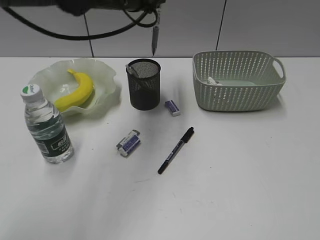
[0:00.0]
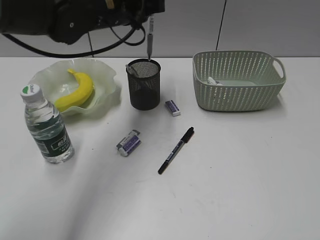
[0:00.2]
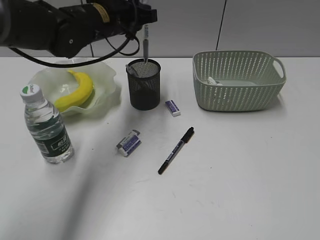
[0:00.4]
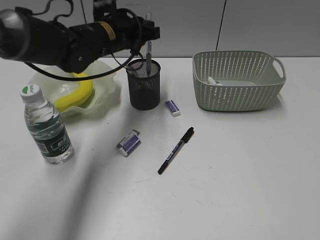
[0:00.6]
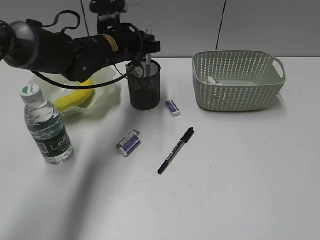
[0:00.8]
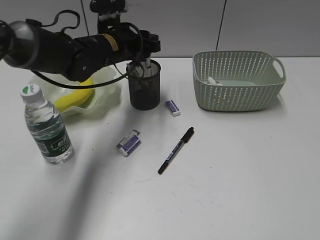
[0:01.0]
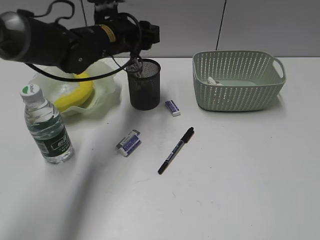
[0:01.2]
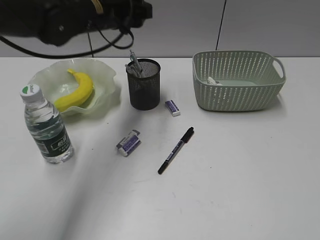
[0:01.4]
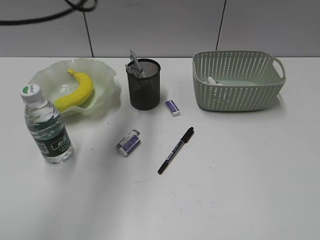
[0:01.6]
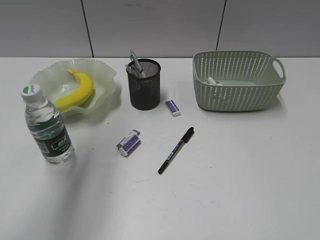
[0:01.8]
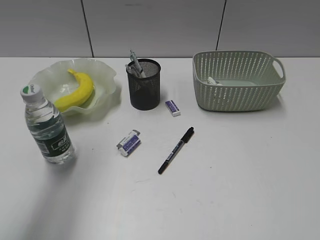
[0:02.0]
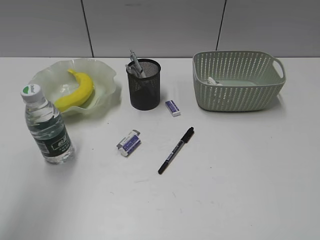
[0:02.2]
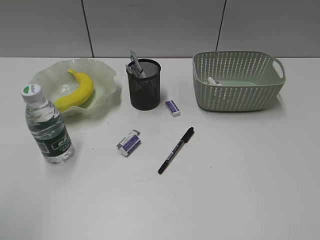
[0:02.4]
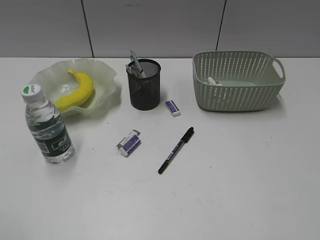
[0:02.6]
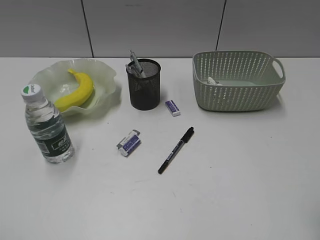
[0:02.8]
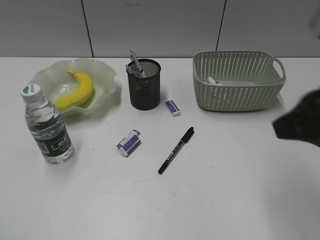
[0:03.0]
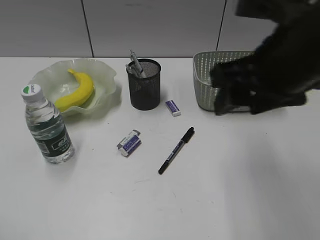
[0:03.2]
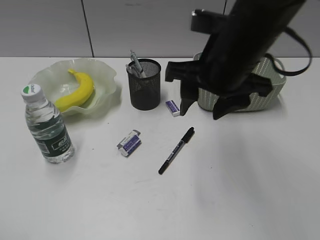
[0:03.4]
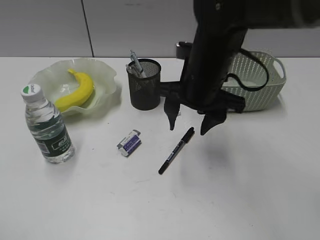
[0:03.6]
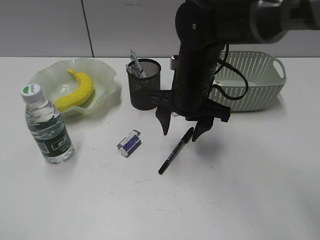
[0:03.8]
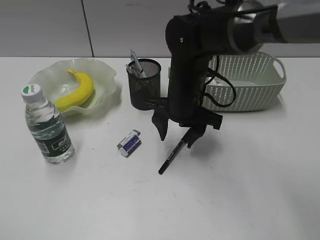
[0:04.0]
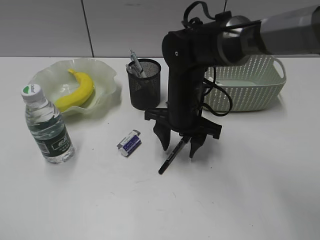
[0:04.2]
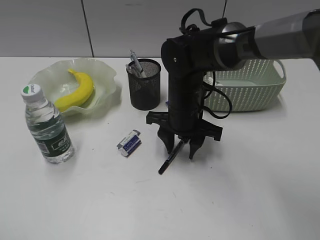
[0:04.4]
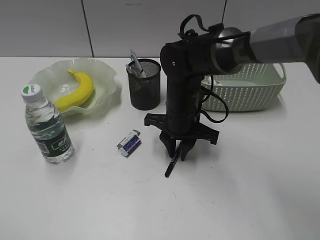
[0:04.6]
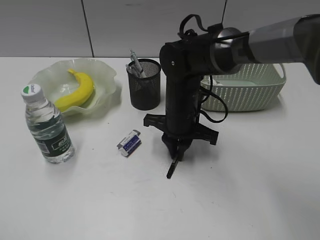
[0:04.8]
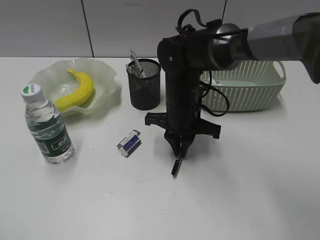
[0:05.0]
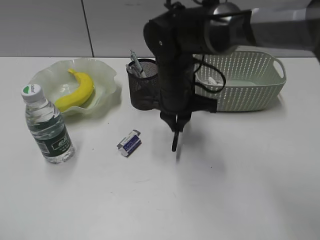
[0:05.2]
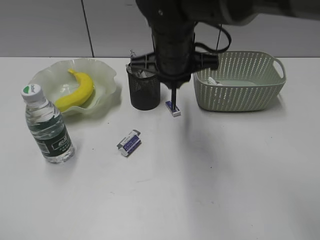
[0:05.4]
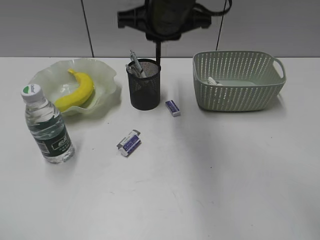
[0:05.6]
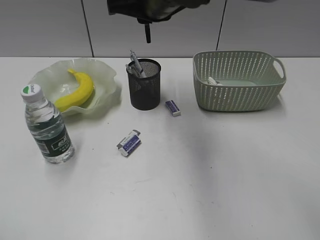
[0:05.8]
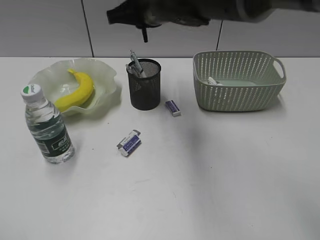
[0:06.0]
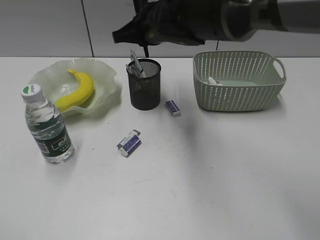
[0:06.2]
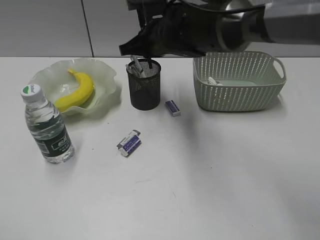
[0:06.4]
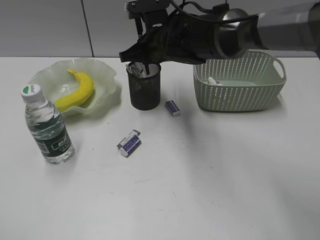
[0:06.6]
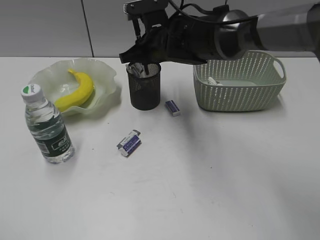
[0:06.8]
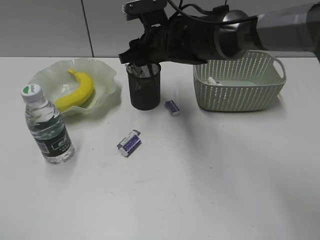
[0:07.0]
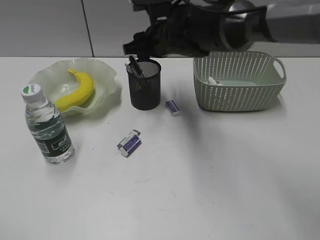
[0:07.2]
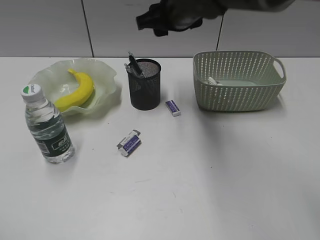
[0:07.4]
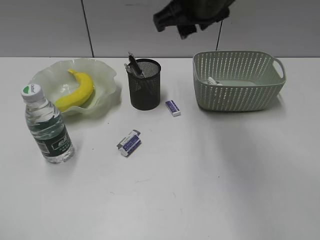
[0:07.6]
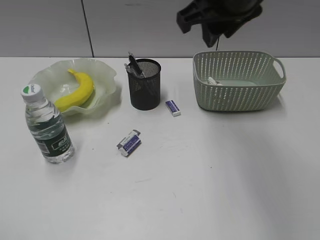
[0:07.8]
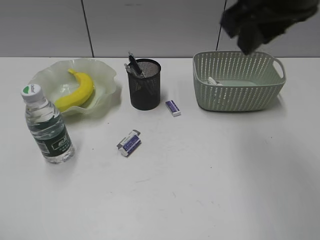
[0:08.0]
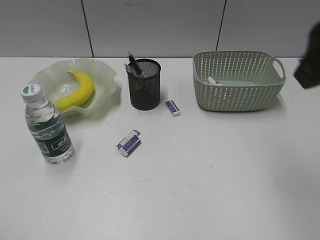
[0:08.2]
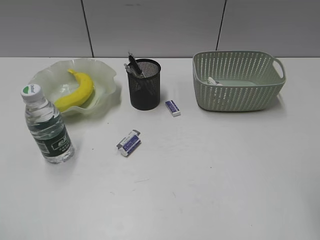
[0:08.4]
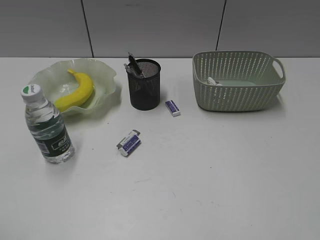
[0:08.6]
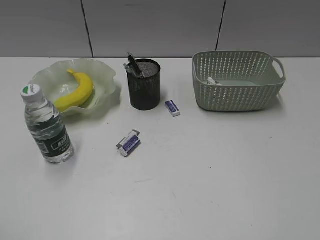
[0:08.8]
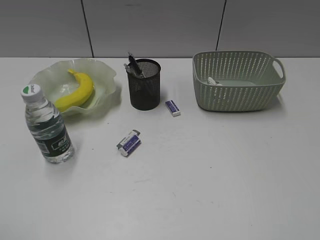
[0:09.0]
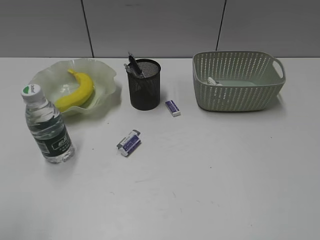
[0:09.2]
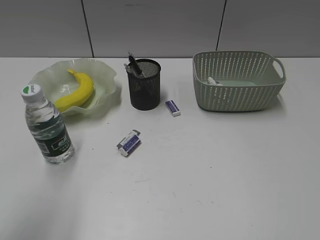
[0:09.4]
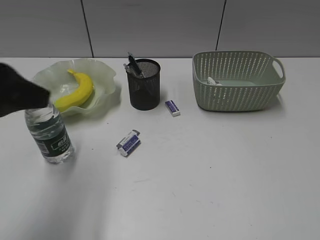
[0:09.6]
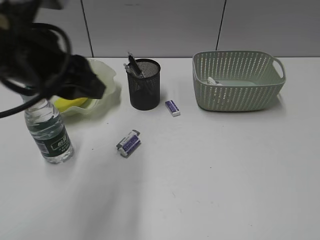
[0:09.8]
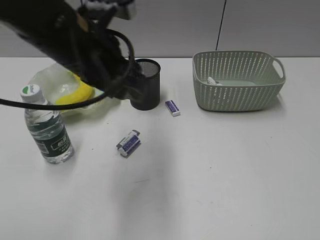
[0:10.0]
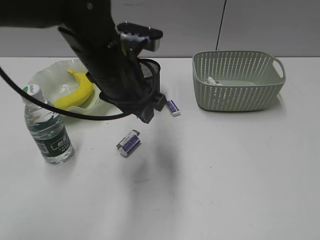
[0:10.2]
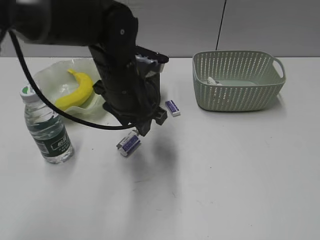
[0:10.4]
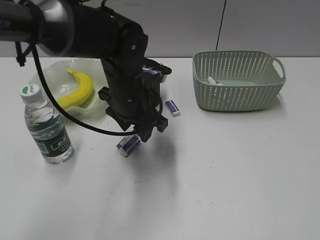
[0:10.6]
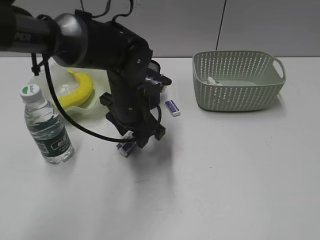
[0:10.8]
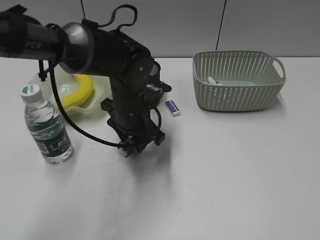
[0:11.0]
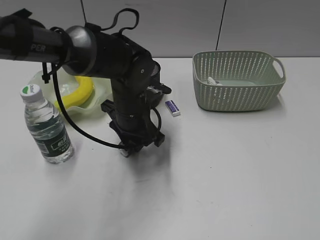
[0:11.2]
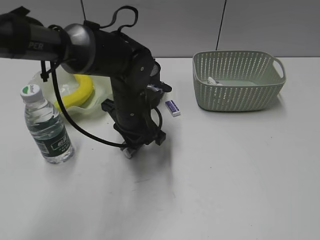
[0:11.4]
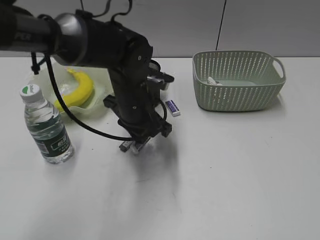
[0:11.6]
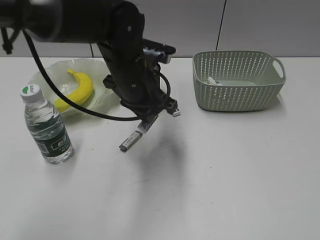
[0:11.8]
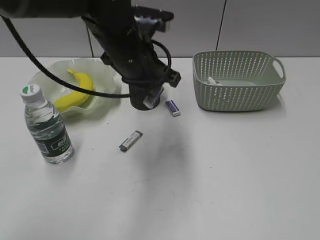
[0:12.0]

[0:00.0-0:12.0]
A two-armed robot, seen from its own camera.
Step, 0:01.2 to 0:04.8: Grasp the black pen with right gripper.
Step, 0:05.0 to 0:07.2: Place the black pen in pen holder with right gripper.
Step, 0:07.4 to 0:11.4: Grasp the eraser with left gripper.
0:00.0 to 0:01.6: The left gripper goes about 5 cm to the left, reaches approximately 10 cm downward, then returns, and opens its fingers.
0:01.6 to 0:03.0: The right gripper heads forward and to the left, covering roughly 20 cm, while the left gripper travels backward and to the left by some 40 cm.
0:03.0 to 0:04.4: The right gripper heads downward, forward and to the left, covering approximately 30 cm.
0:04.4 to 0:06.0: The right gripper goes approximately 15 cm upward, and closes its fingers.
0:06.0 to 0:07.6: The right gripper is displaced to the right by about 5 cm, travels downward and back again, about 10 cm each way, and opens.
0:07.6 to 0:09.0: The right gripper goes roughly 40 cm backward and to the right.
0:09.0 to 0:10.4: The left gripper goes some 40 cm forward and to the right.
0:10.4 to 0:12.0: The left gripper closes.

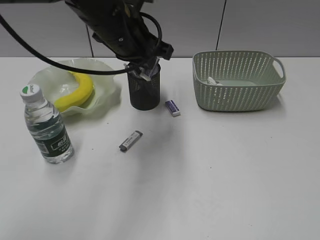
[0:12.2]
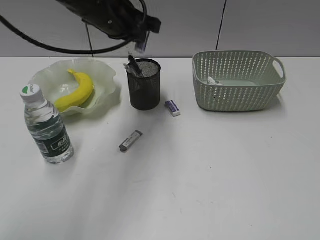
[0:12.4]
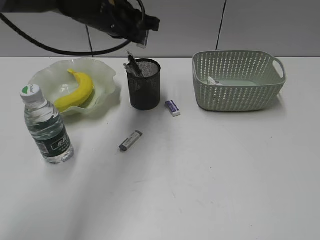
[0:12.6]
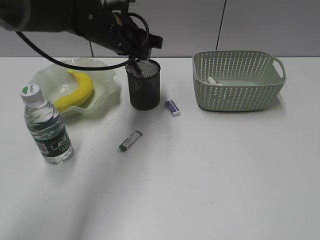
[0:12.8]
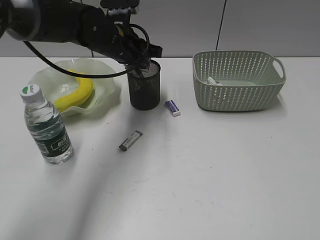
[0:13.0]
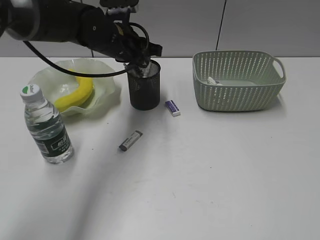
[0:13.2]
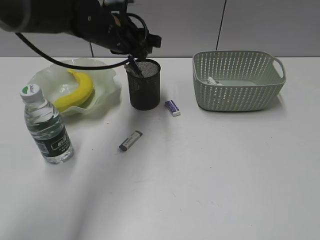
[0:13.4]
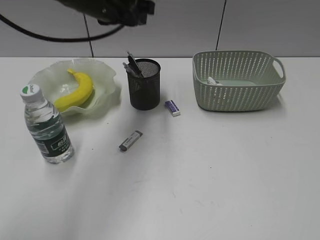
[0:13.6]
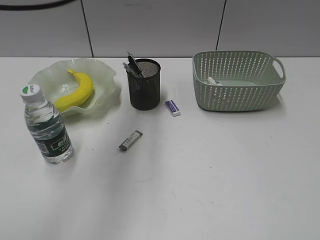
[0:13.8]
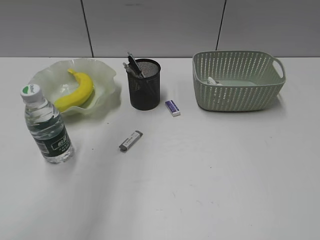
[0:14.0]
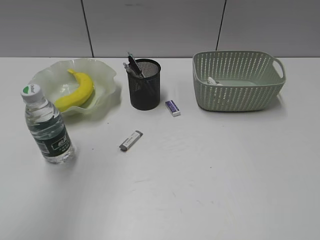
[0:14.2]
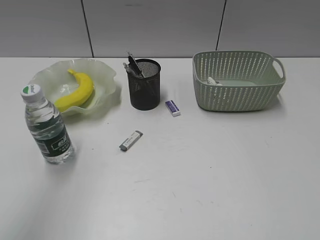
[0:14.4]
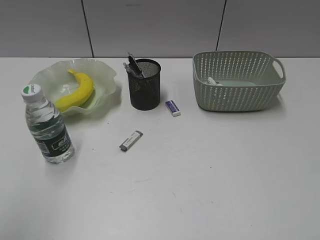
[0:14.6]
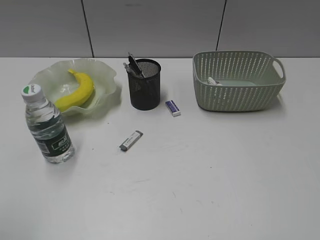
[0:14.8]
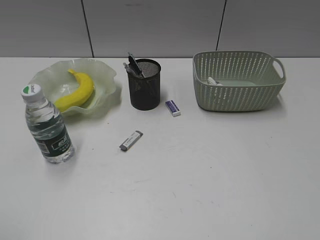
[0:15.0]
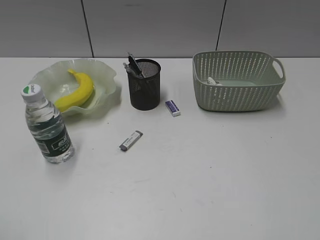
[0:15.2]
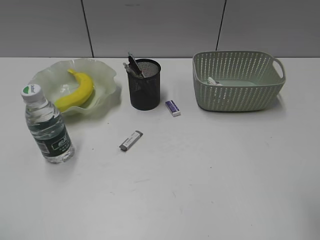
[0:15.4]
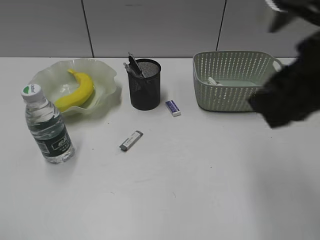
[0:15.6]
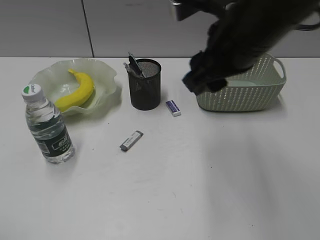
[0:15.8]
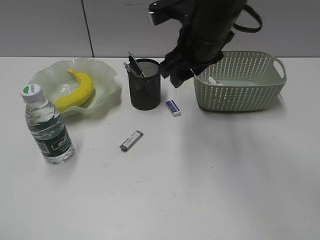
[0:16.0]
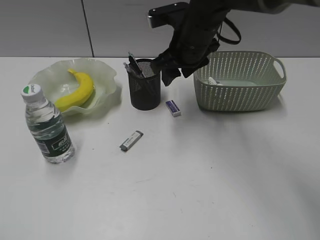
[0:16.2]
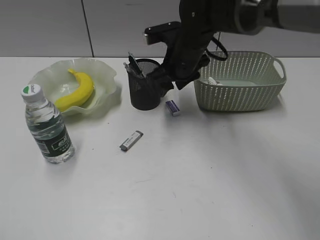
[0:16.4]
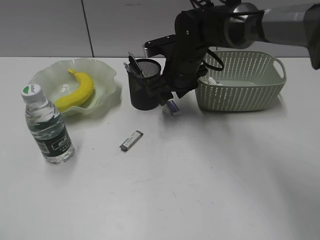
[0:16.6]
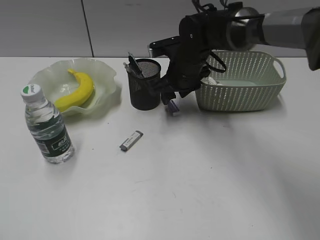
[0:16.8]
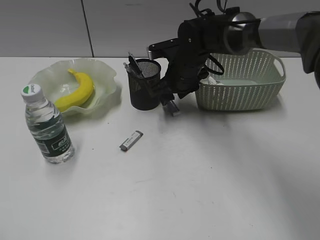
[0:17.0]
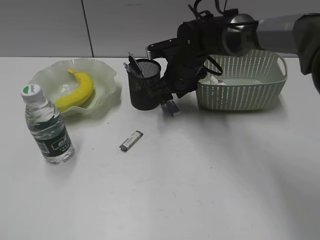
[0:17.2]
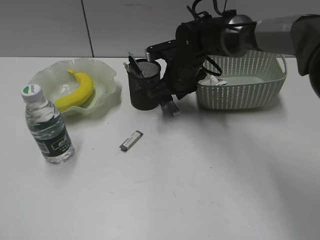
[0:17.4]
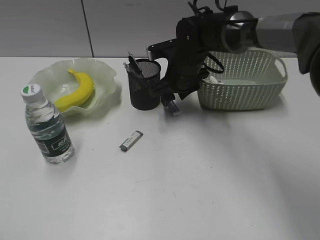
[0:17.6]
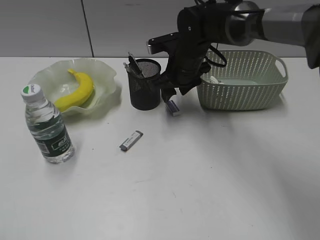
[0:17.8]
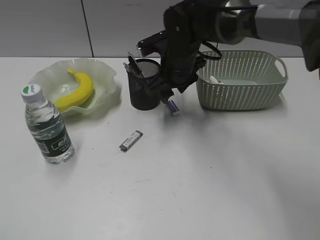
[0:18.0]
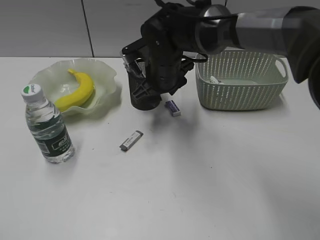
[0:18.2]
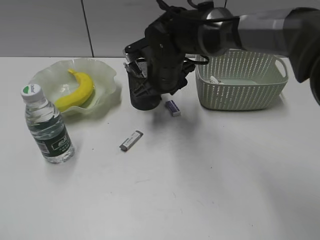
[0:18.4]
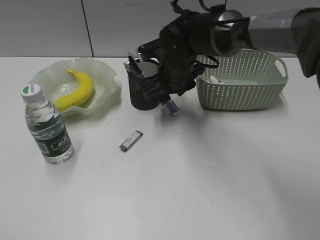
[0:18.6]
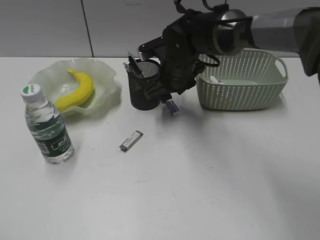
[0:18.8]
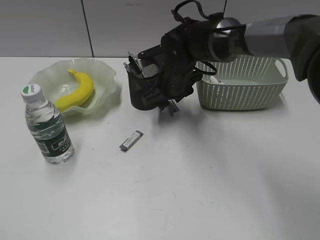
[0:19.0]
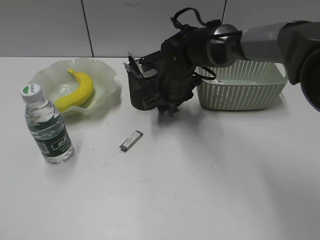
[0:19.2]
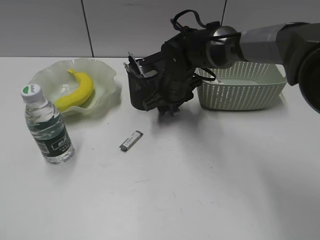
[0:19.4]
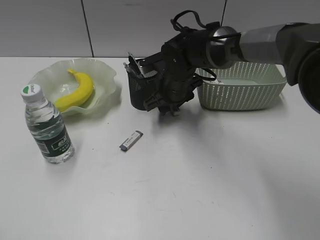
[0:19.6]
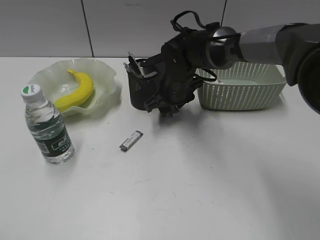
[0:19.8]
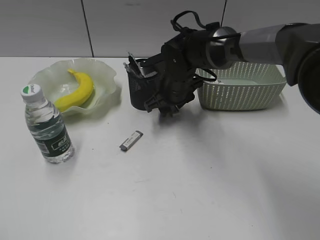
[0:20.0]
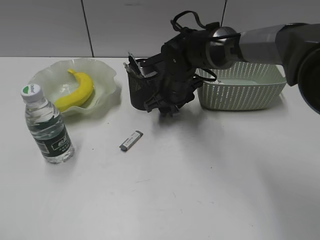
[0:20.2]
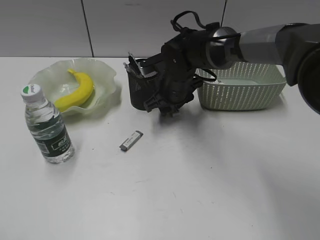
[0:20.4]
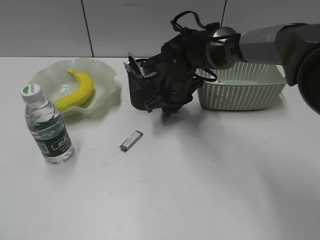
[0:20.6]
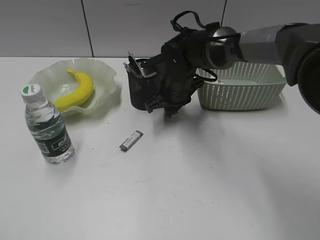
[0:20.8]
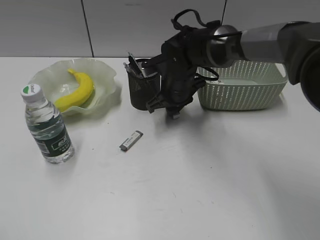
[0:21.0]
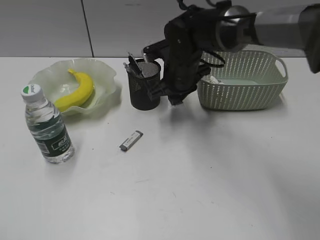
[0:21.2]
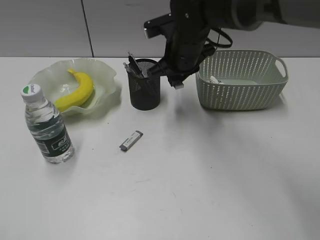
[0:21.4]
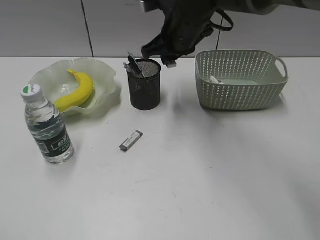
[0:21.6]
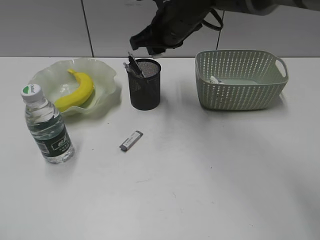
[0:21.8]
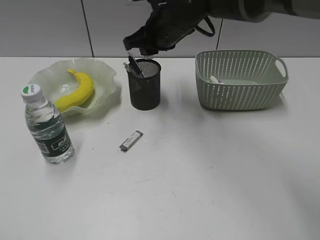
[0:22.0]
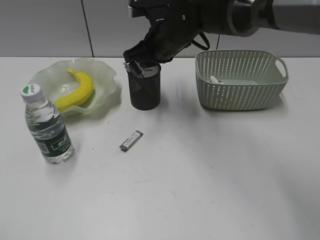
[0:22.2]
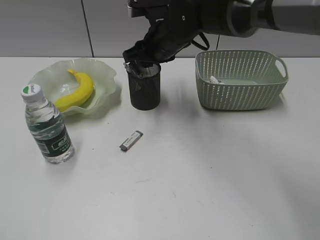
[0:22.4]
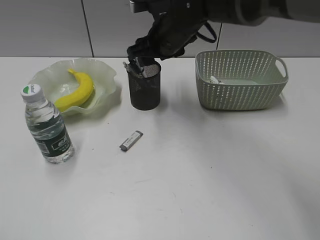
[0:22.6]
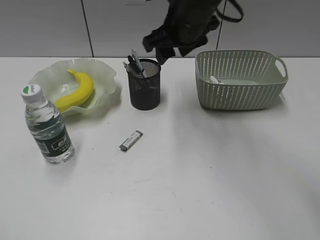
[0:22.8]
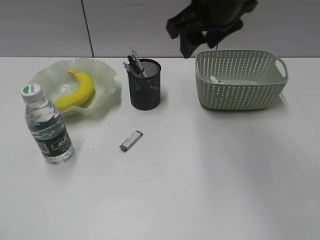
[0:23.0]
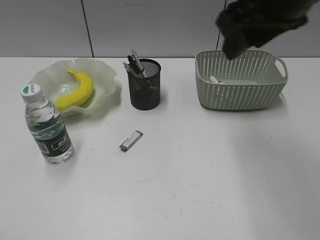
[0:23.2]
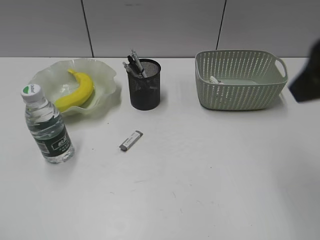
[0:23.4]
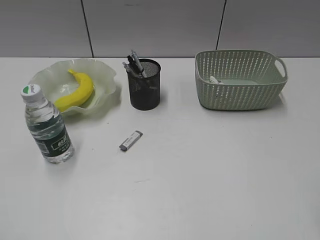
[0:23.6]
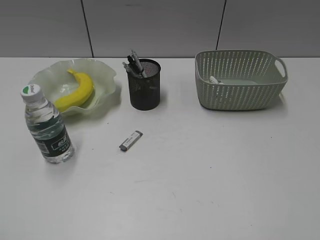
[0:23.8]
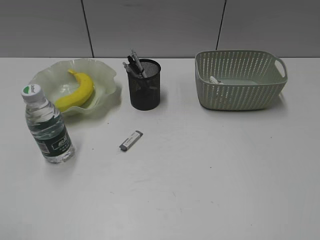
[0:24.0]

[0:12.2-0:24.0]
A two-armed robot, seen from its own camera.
Step, 0:12.2 to 0:13.4: Place the eraser in pen holder with left gripper.
Step, 0:13.6 to 0:20.8: Grasp the eraser with right gripper.
Step, 0:21.0 to 0:22.4: Place the eraser in pen holder with right gripper.
0:12.2 to 0:13.6: The left gripper travels downward and back again, some 5 cm each way, and opens up.
0:13.6 to 0:15.2: The left gripper heads backward and to the left, covering some 40 cm.
0:15.2 to 0:16.6: The right gripper moves forward, to the left and downward, roughly 50 cm, and opens.
0:16.6 to 0:18.2: The grippers move only a little.
0:18.2 to 0:19.6: The right gripper moves about 5 cm.
0:19.6 to 0:21.0: The right gripper closes.
0:21.0 to 0:22.6: The right gripper is displaced upward by roughly 10 cm, and opens.
0:22.6 to 0:24.0: The right gripper goes roughly 50 cm backward and to the right.
